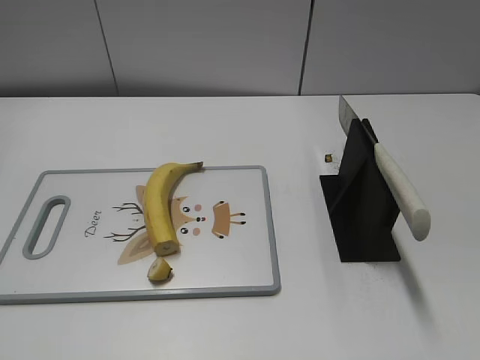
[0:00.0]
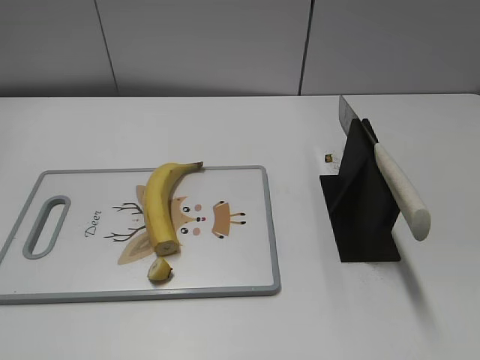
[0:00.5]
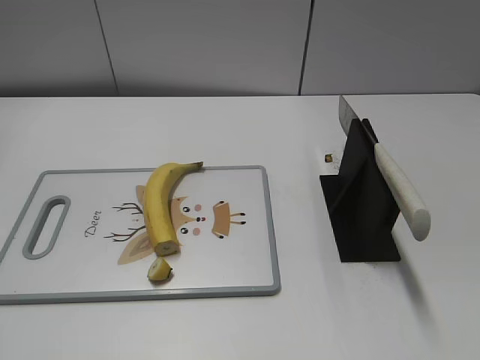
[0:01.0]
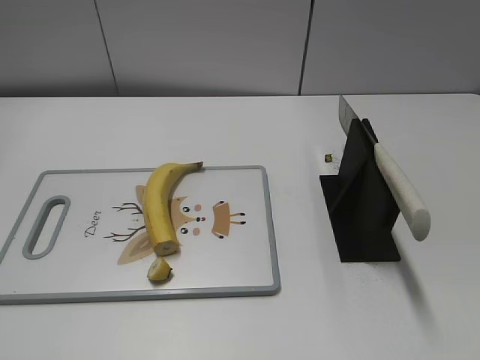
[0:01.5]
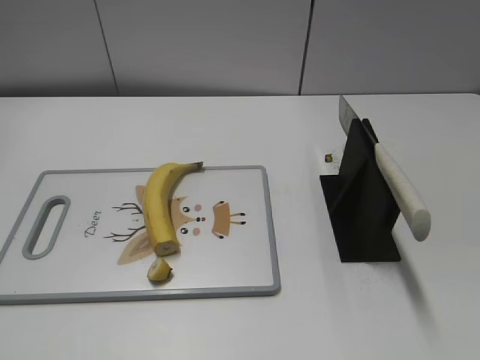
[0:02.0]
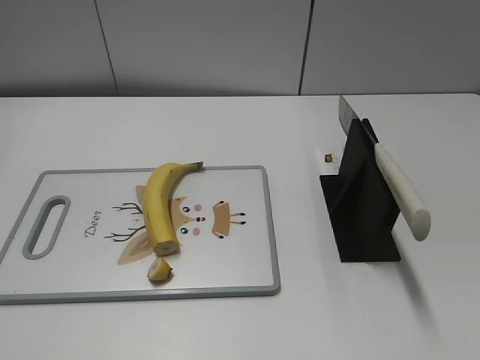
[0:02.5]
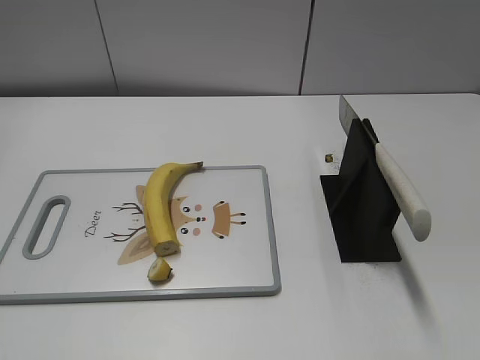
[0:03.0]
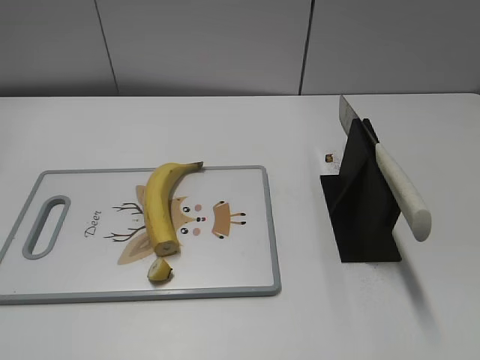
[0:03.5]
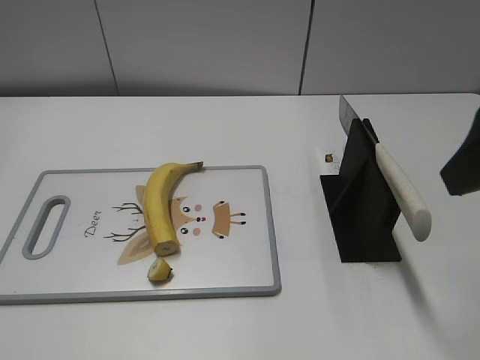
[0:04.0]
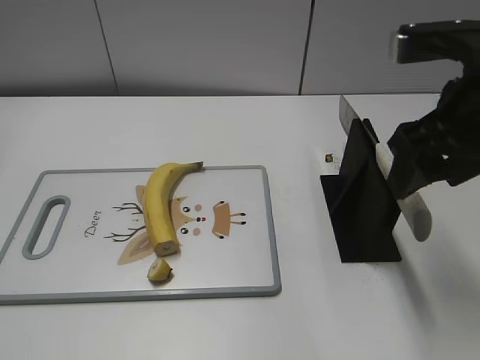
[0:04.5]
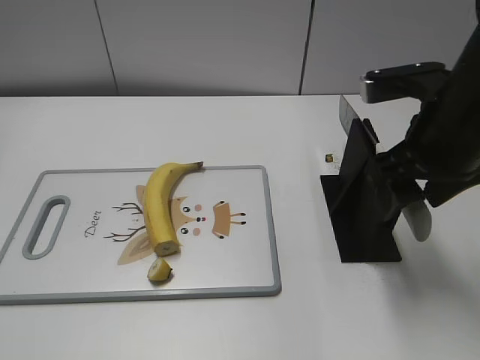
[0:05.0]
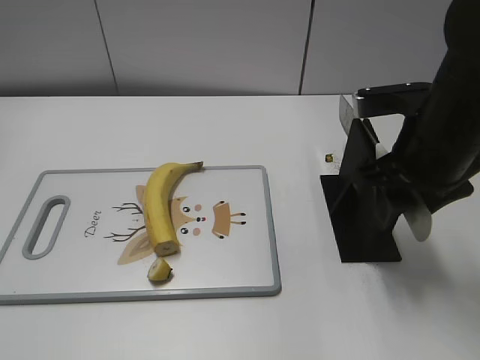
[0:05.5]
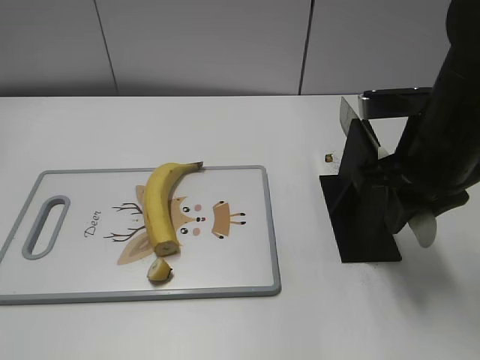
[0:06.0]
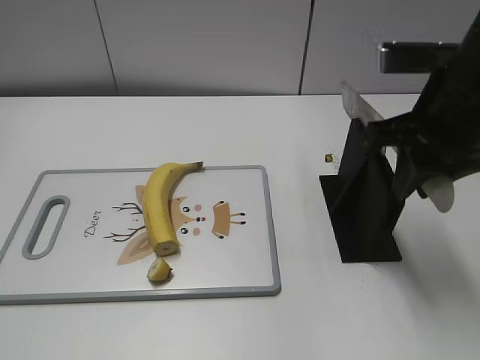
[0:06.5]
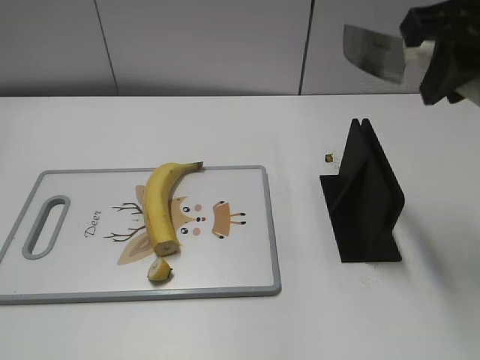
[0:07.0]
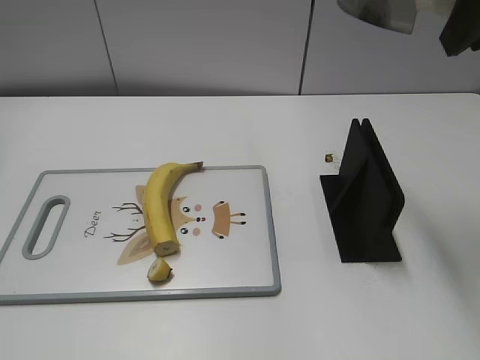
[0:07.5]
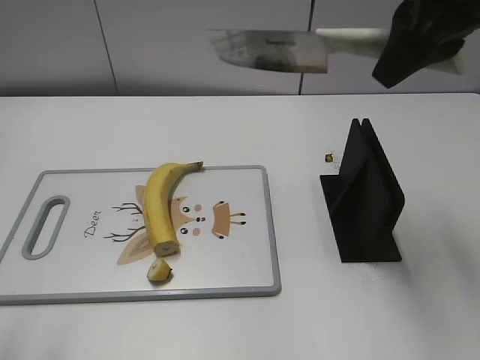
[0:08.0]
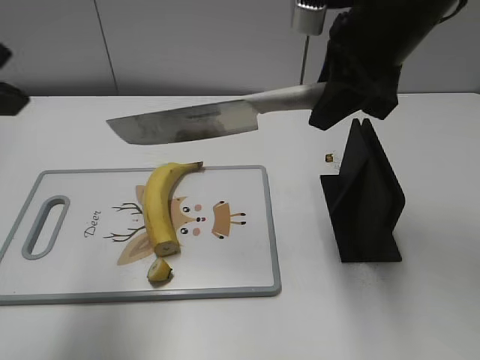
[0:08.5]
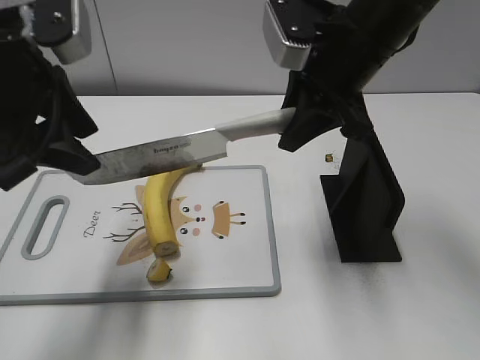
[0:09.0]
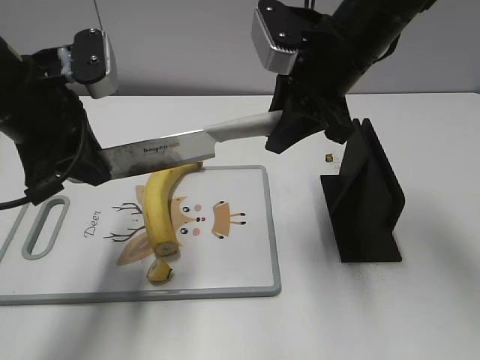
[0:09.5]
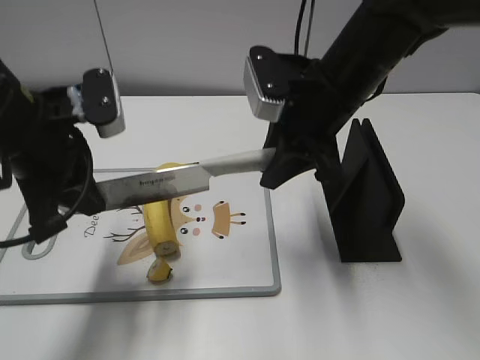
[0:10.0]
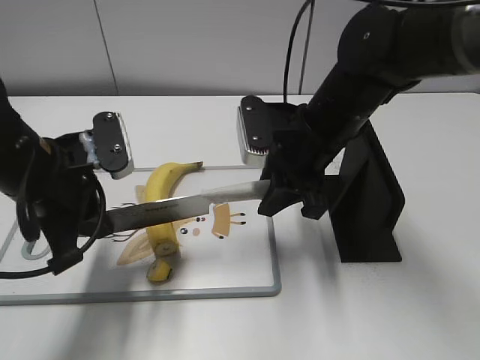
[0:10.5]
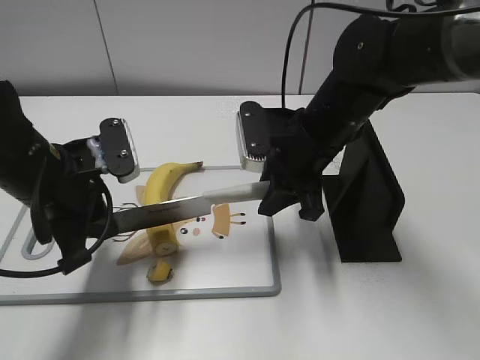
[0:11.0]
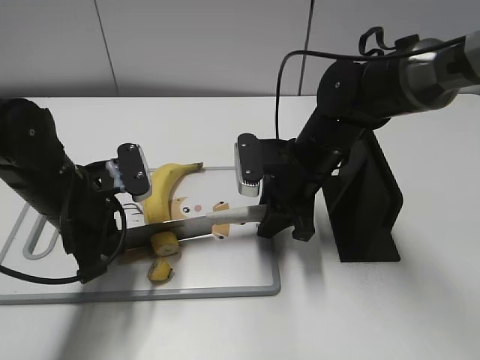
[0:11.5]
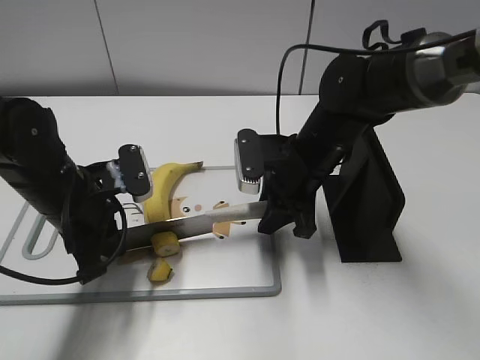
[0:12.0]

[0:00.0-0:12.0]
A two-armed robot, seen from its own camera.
Task of the whole recording: cut banana.
Step, 0:00.0 to 0:07.0: Grab the knife handle with your right hand.
Step, 0:07.5 to 0:12.0: Lift the knife with your right hand.
0:02.0 to 0:04.0: The right gripper heads forward and to the left, covering approximately 20 cm.
0:04.0 to 0:06.0: The right gripper travels downward and forward by about 15 cm, and closes its fingers.
0:06.0 to 0:08.0: The left gripper goes about 10 cm forward and upward, while the right gripper travels upward by roughly 15 cm.
0:08.0 to 0:10.0: The left gripper travels forward, downward and to the right by about 25 cm, and closes; the right gripper goes roughly 15 cm downward and to the left.
0:10.0 to 0:12.0: The grippers both shift downward by some 10 cm.

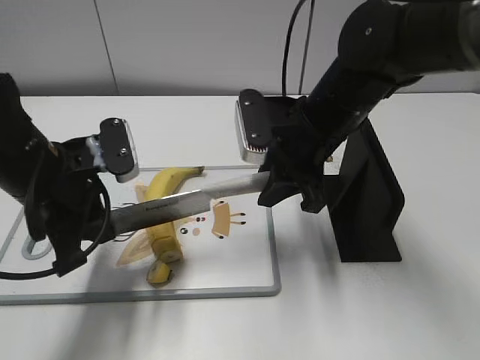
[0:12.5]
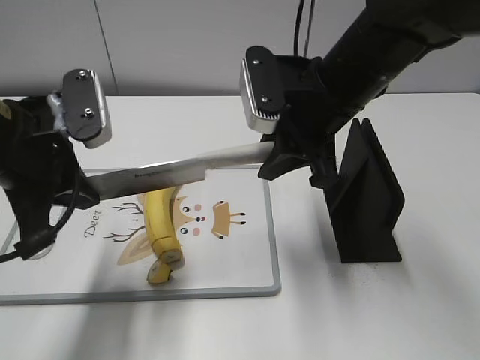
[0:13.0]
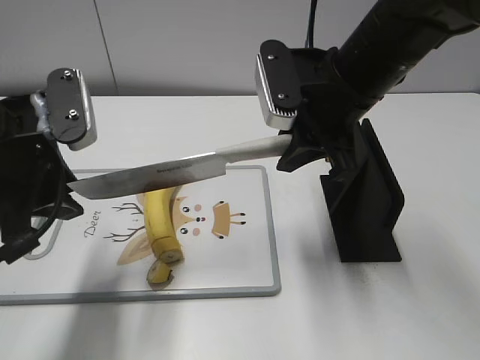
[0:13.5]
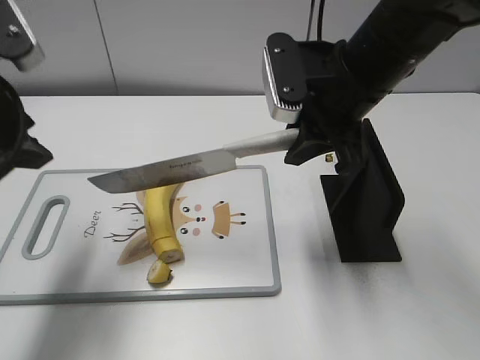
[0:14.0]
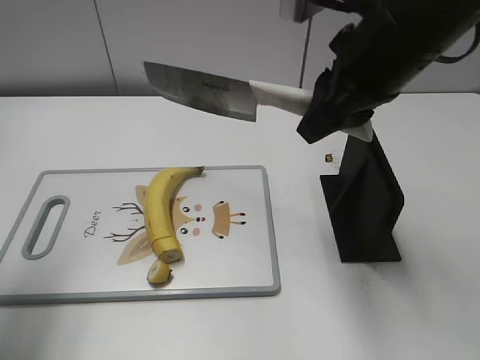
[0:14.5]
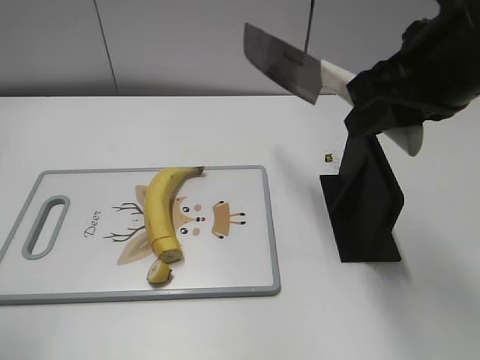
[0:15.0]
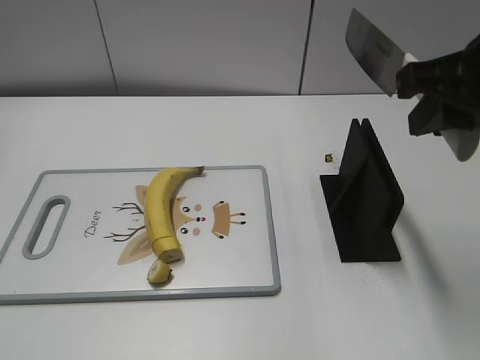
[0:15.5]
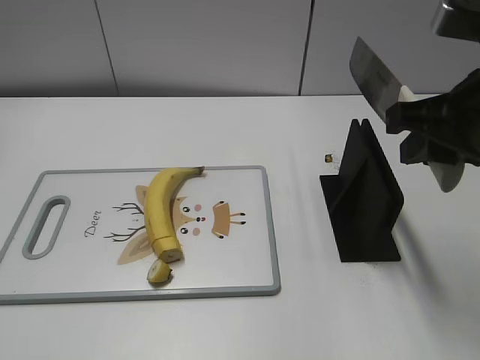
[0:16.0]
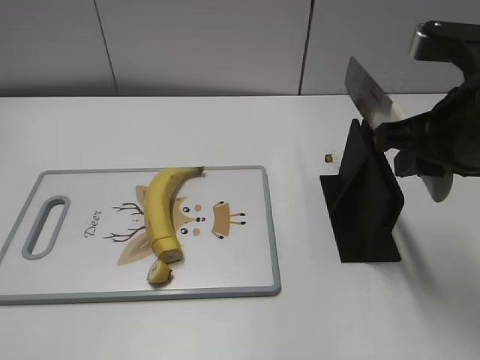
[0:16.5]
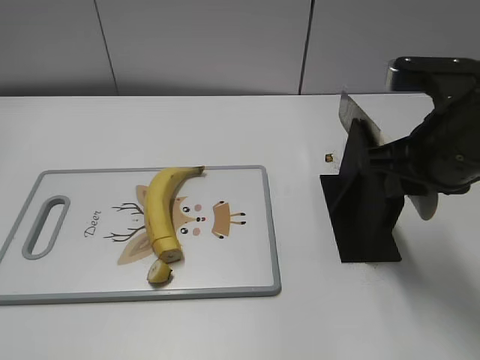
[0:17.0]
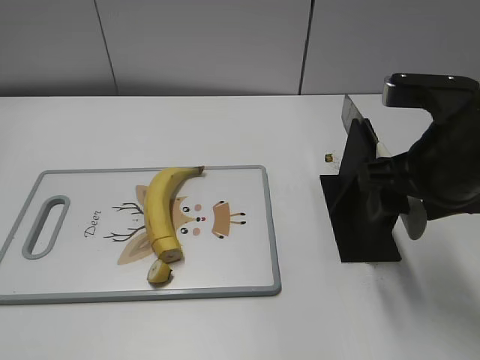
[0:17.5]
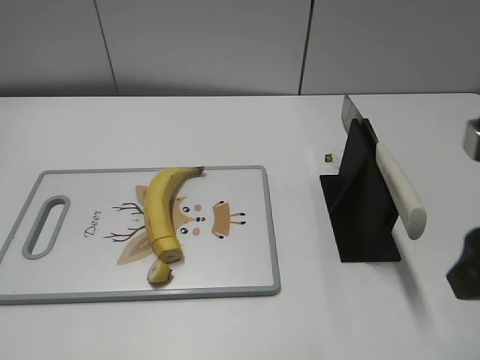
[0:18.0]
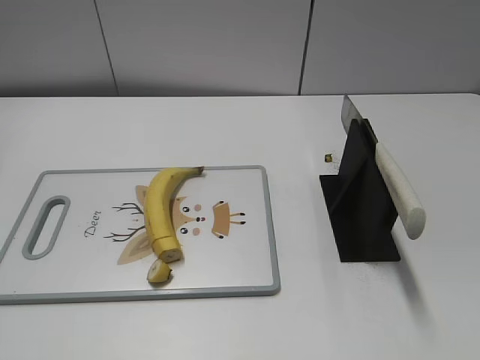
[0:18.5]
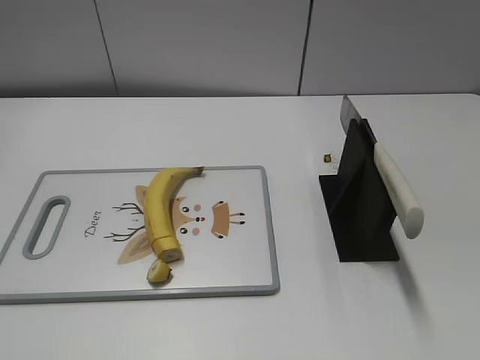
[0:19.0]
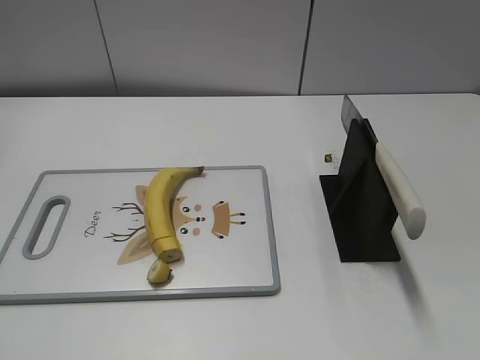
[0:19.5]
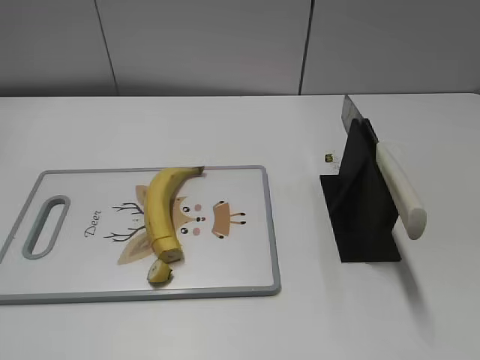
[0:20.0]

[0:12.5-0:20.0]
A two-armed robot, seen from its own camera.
Task of the whole recording: cut banana.
Step, 0:12.5 to 0:14.5: Cut the banana with your right hand.
Step, 0:15.0 to 0:16.0: Lift the knife with your right hand.
Step, 0:16.5 to 0:20.0: Place the knife on the storage rack with your right hand.
0:12.5 to 0:14.5: The left gripper moves upward and to the left, roughly 20 cm, and opens up; the right gripper goes approximately 10 cm upward.
0:14.5 to 0:16.5: The right gripper shifts approximately 5 cm to the right; the left gripper travels backward by some 20 cm.
0:16.5 to 0:18.0: The right gripper shifts approximately 10 cm backward, and opens.
0:18.0 to 0:20.0: The right gripper is displaced backward and to the right by roughly 15 cm.

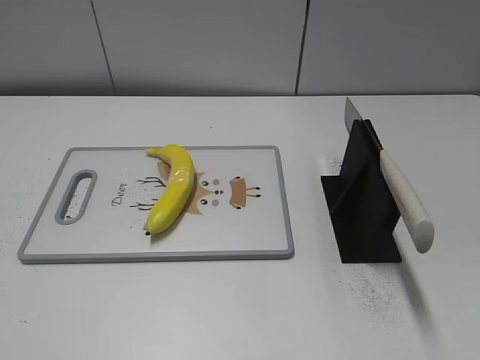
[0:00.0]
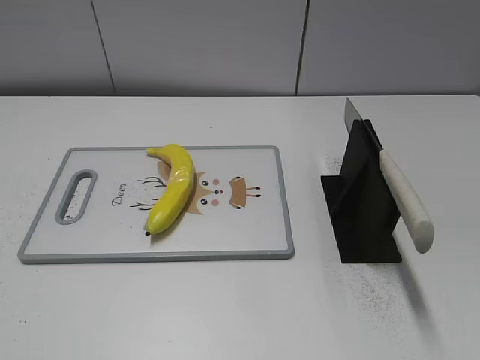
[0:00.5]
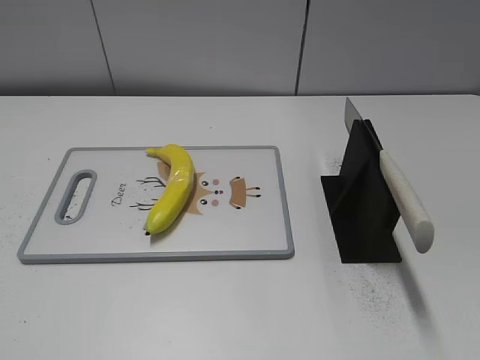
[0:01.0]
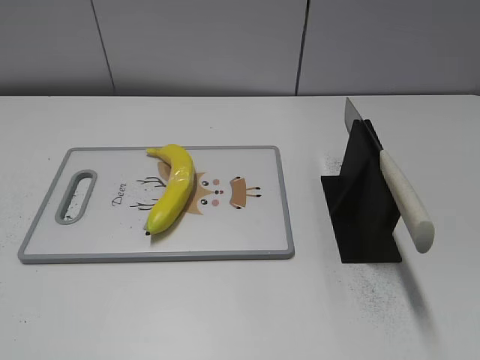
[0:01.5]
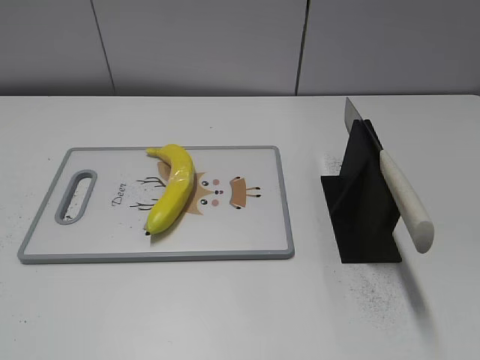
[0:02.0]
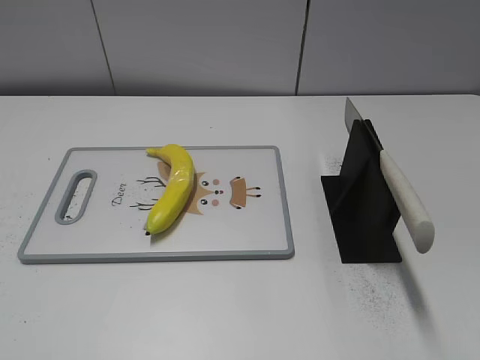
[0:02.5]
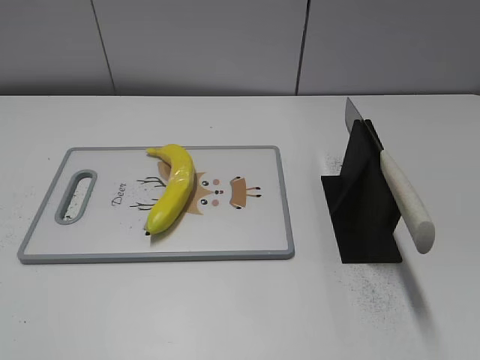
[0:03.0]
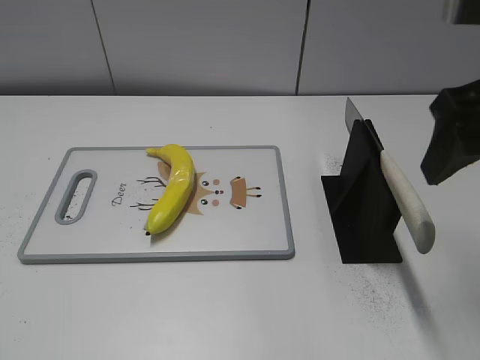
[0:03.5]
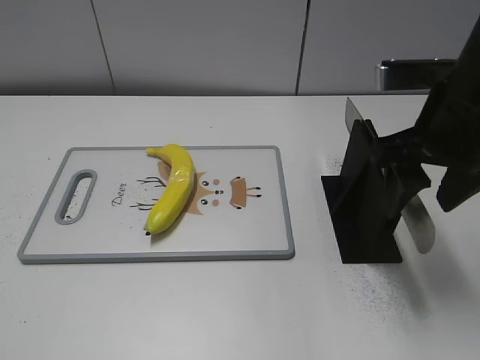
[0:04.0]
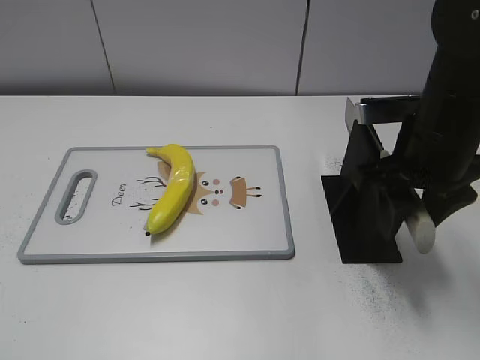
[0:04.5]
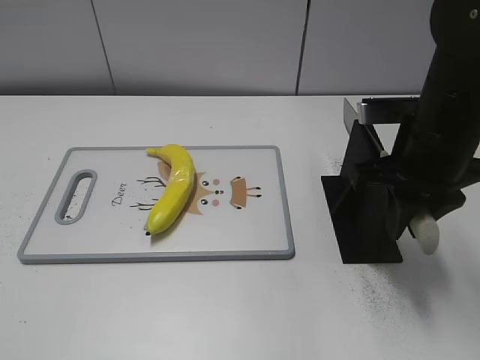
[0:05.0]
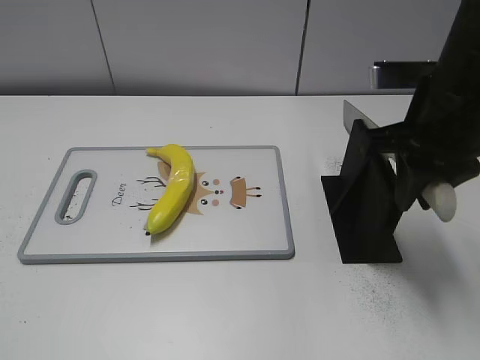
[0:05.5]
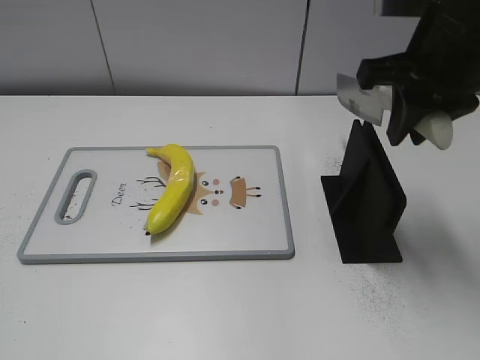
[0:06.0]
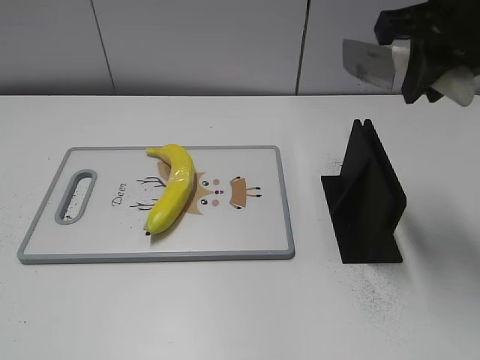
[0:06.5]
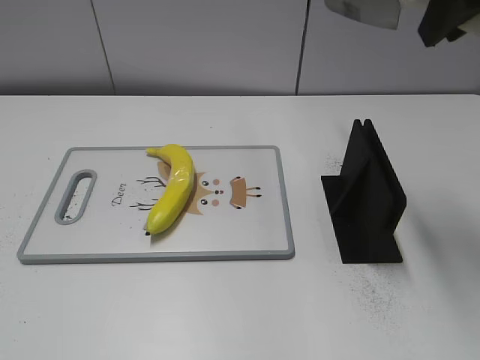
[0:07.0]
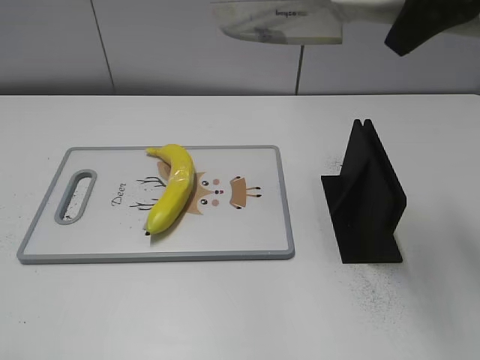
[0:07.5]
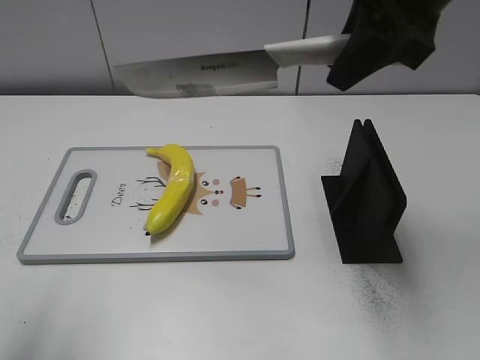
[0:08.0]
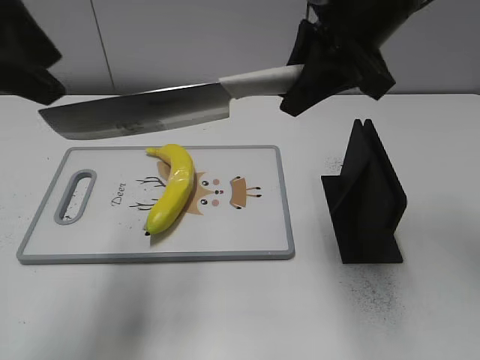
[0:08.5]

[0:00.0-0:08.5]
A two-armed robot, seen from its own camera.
Task of the whole recording: cut plastic banana.
Step, 0:00.0 to 0:05.5: Grab the knife handle with your right hand.
0:02.0 to 0:04.0: The right gripper travels forward and to the left by roughly 30 cm.
0:04.0 to 0:06.5: The right gripper goes roughly 10 cm upward, and closes its fingers.
0:06.5 to 0:08.5: The right gripper moves to the left, roughly 5 cm; the left gripper is displaced forward, to the right and upward by approximately 30 cm.
